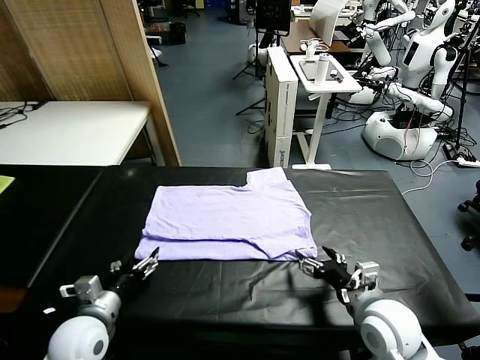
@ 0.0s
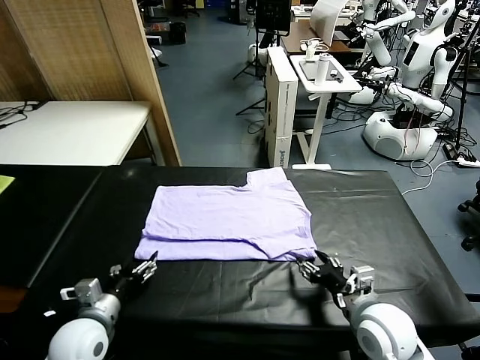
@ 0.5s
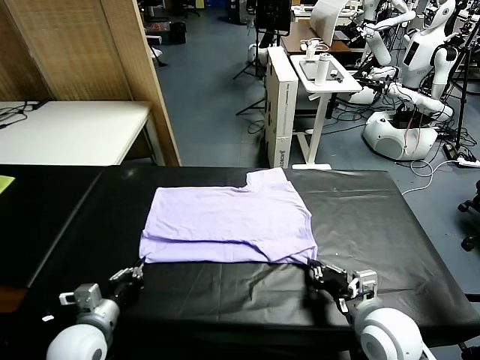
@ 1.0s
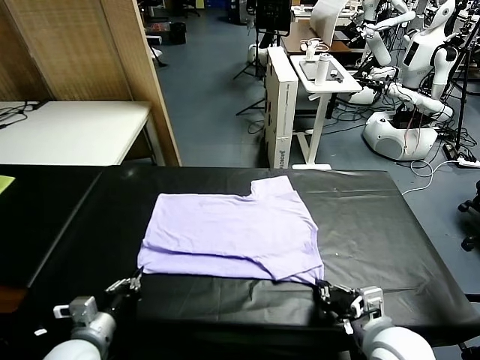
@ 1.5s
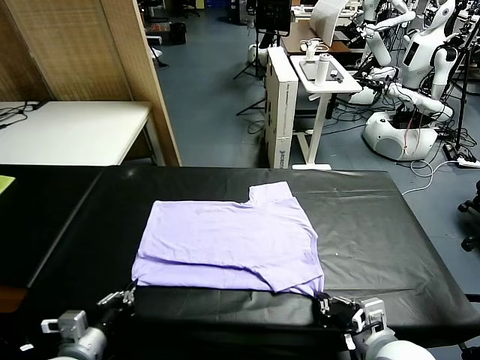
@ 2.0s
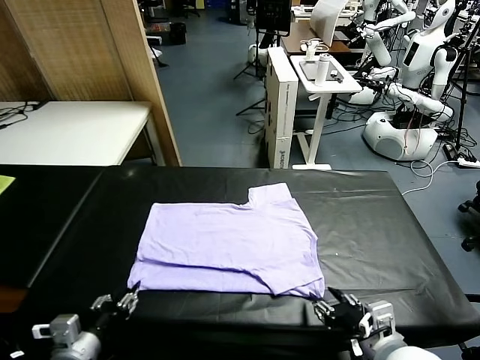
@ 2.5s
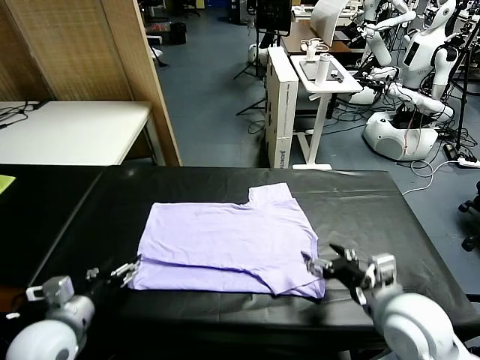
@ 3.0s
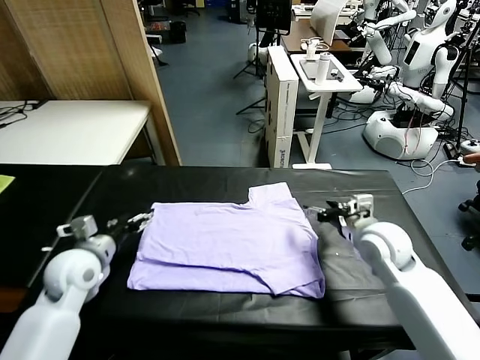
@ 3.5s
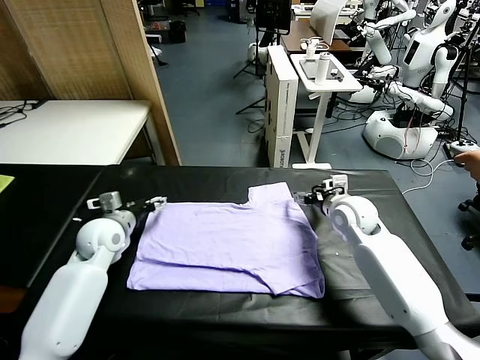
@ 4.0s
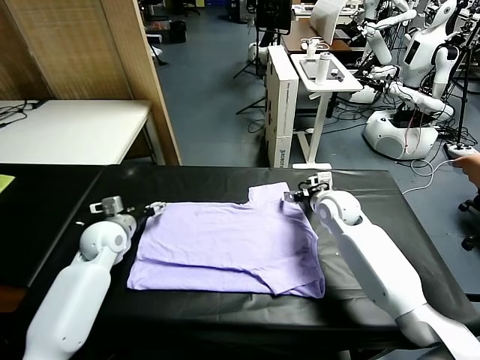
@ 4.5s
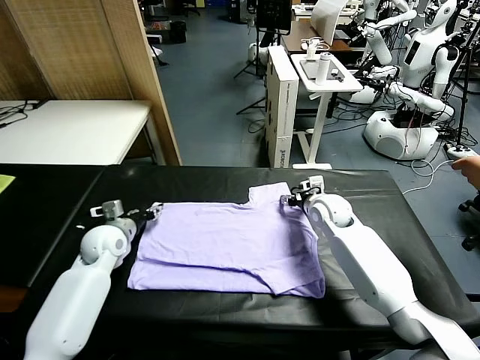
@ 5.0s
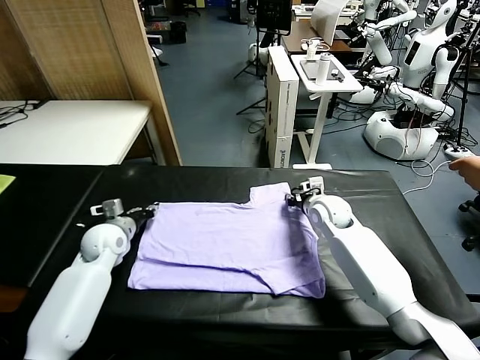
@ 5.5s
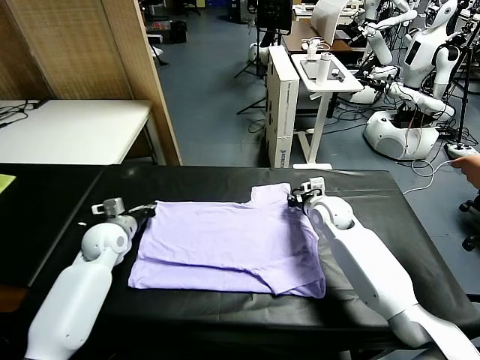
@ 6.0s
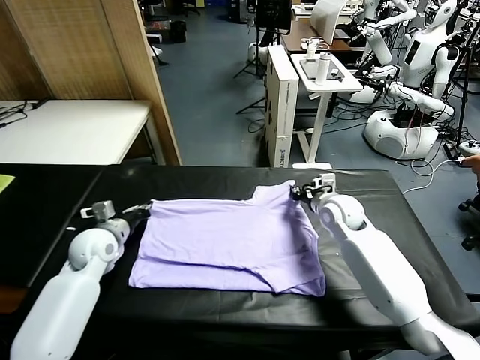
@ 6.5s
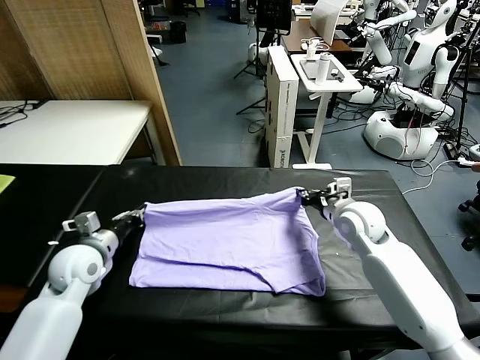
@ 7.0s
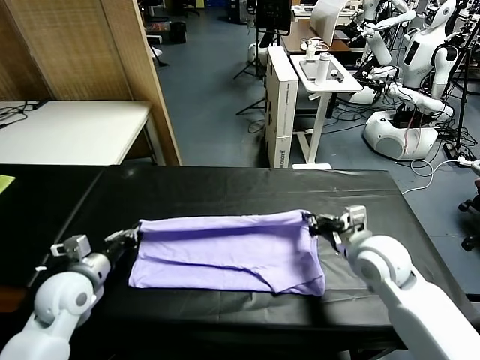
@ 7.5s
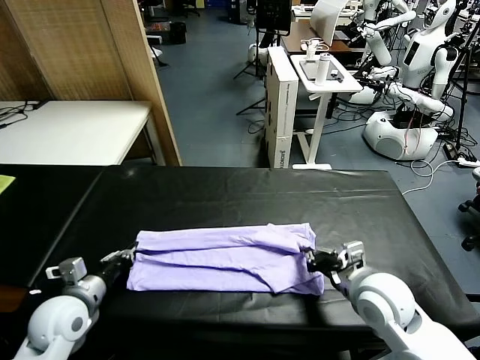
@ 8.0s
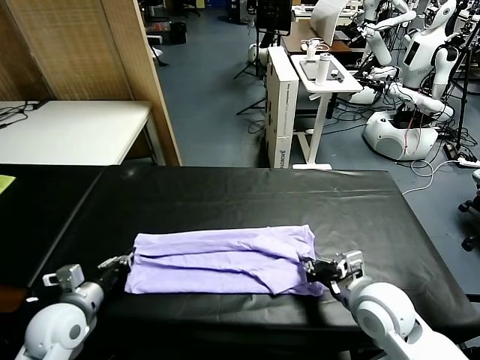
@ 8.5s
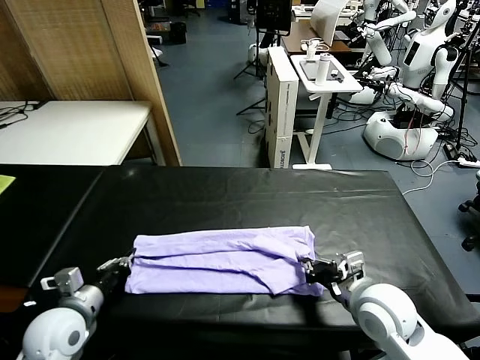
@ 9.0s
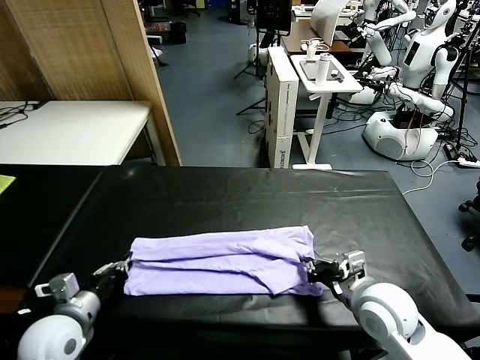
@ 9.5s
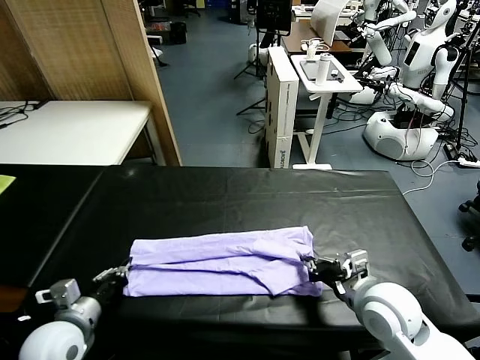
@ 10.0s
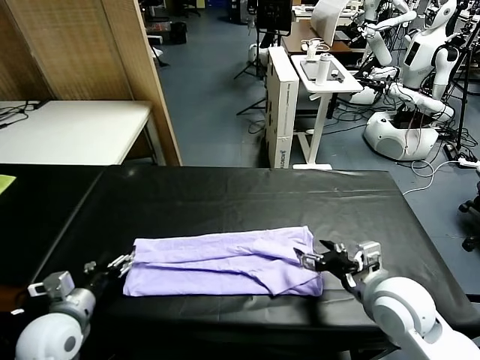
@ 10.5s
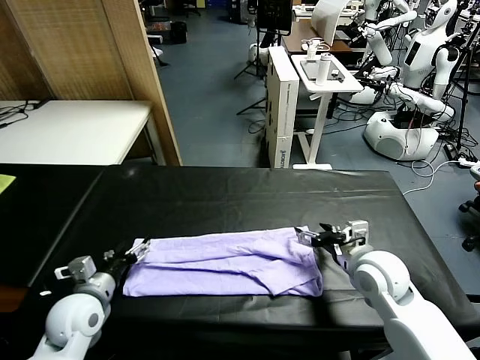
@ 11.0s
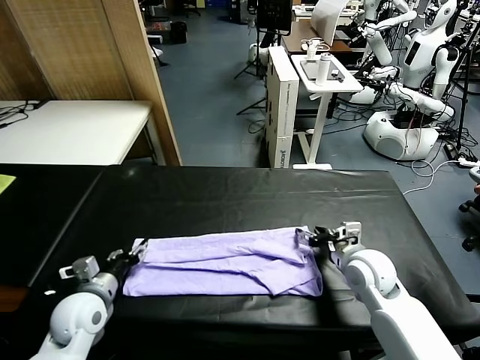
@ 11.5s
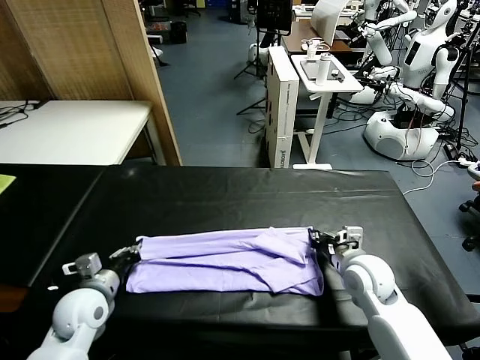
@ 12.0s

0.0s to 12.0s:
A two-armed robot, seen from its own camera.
Task of the whole recording: fold and organize the clothes.
Step, 0.0s to 2.5s: Drag the clothes downward with both gripper.
Step, 3.0s to 6.0s: use both grippers simultaneously to clamp the upper edge of the clothing fabric.
Step, 6.5s to 10.0s: use both grippers to drag the upper edge of the fabric backward and fold it over the lower edge.
0.0s to 2.0s: The grippers both shift backward by about 10 cm. The left gripper closes its fingers. Meanwhile the right gripper closes up.
2.0s to 4.0s: The grippers both shift forward by approximately 30 cm. The right gripper opens up; the left gripper opens its fingers.
4.0s to 6.0s: The right gripper closes, while the left gripper closes.
6.0s to 8.0s: The grippers both shift backward by approximately 20 cm.
8.0s to 10.0s: The left gripper opens; the right gripper opens its fingers.
10.0s to 12.0s: The left gripper moves forward, roughly 10 cm, and closes its fingers. Meanwhile the right gripper goes about 10 cm forward and downward, and closes up.

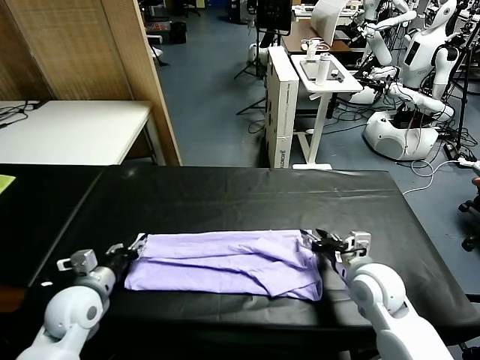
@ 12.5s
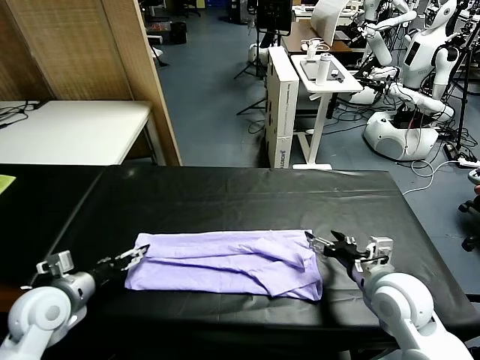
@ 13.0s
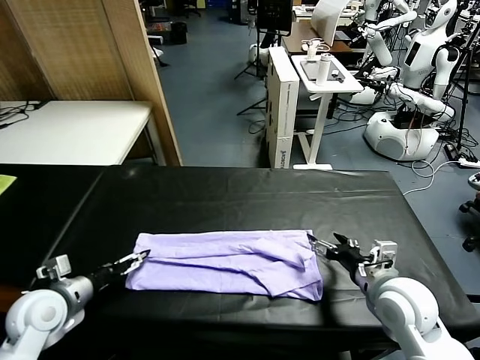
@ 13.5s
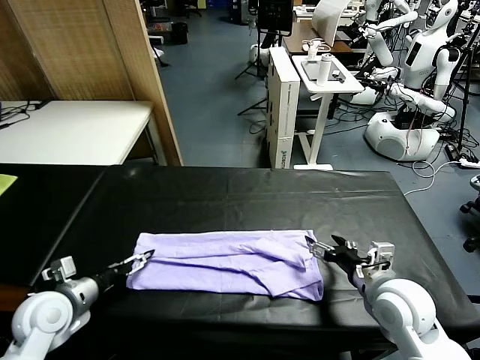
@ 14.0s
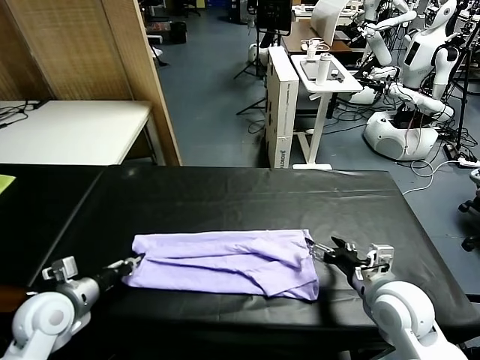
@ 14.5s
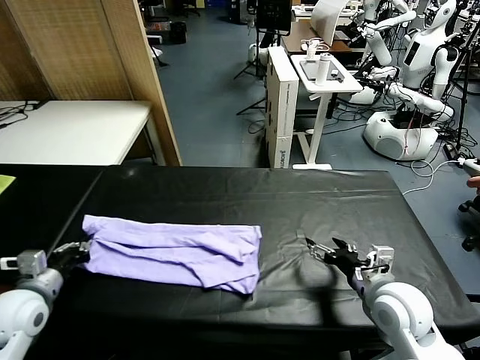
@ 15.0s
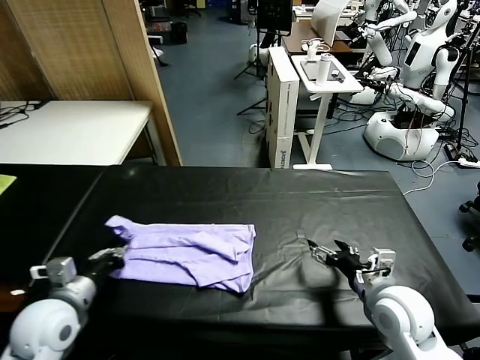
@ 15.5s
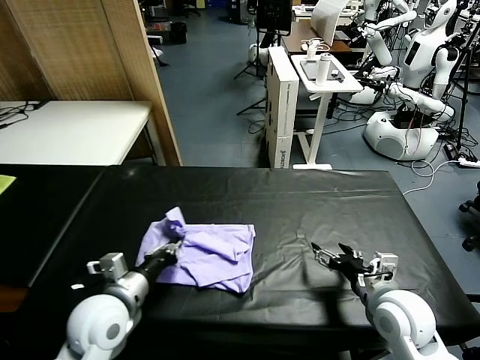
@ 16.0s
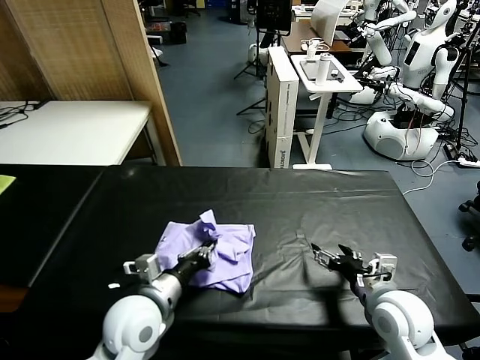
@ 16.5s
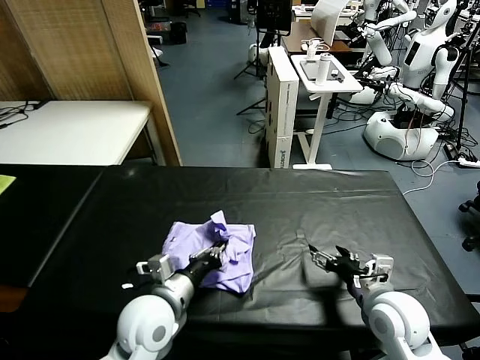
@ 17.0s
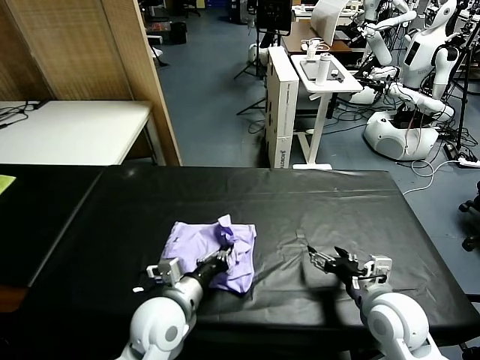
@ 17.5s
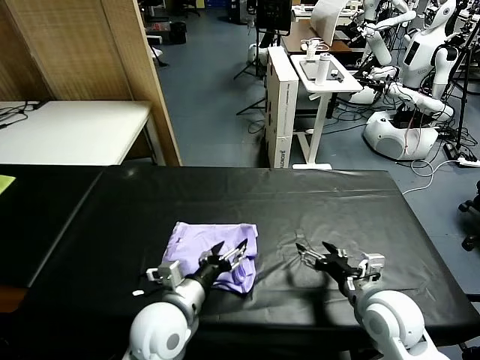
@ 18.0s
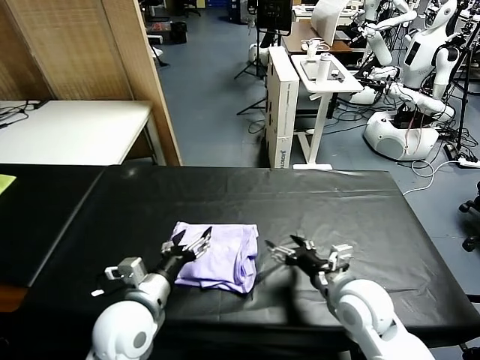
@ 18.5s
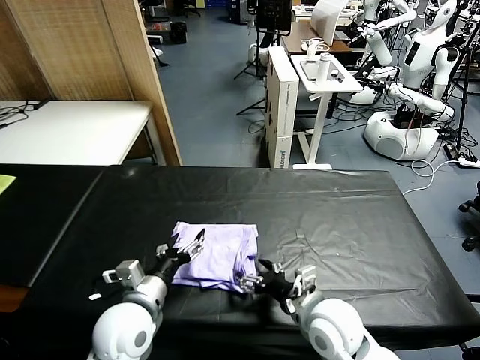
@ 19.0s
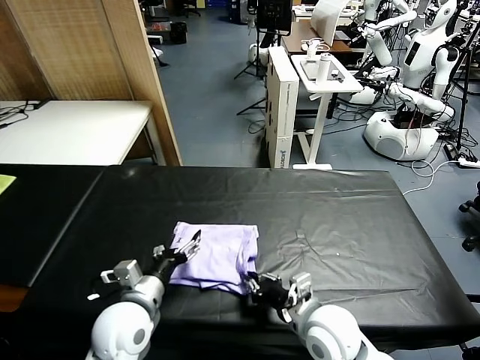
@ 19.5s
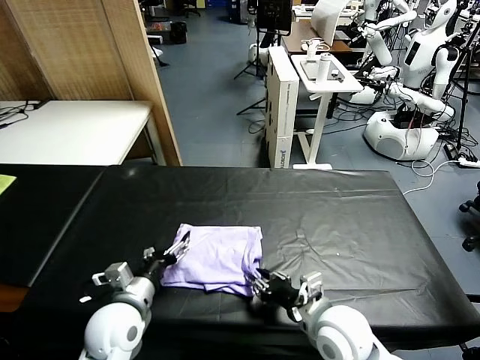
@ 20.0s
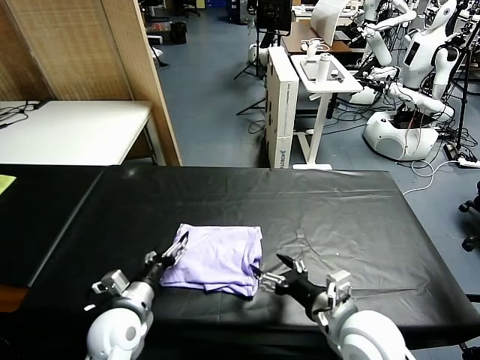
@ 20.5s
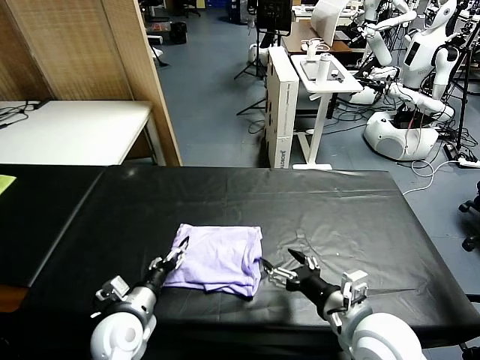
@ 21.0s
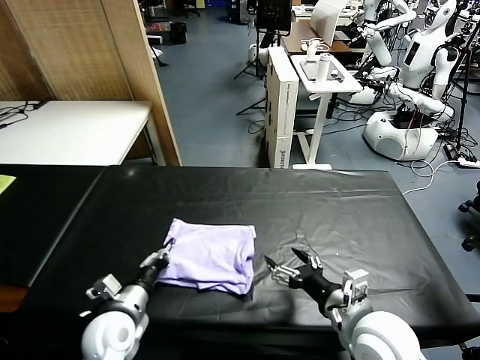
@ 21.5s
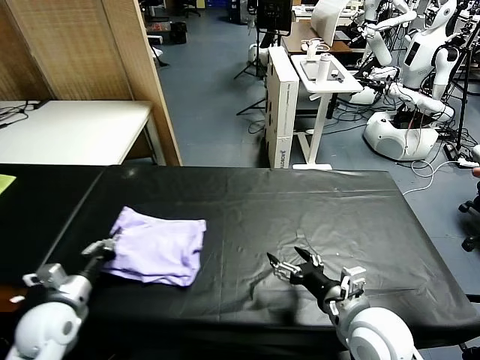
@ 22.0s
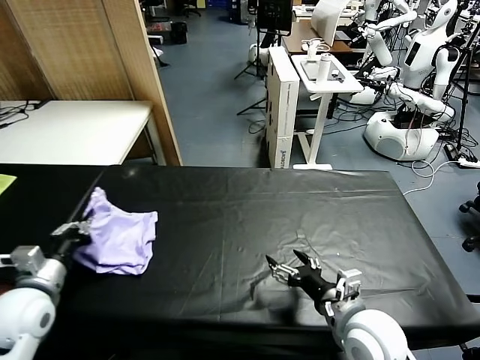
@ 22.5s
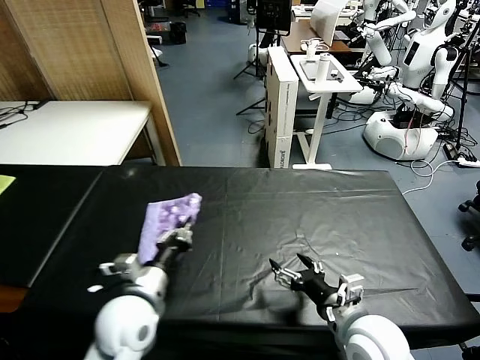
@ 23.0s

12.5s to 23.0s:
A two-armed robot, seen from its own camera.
Task of the whole recording: fold and organize the clothes.
Step, 15.0s to 18.0s: use the left gripper to drag the left edge of the fabric to the left and folds it over the right edge.
12.5s to 14.5s: The left gripper closes its fingers.
14.5s to 16.5s: The left gripper travels to the right by approximately 20 cm.
16.5s to 19.0s: The left gripper opens up; the right gripper travels to the left by some 10 cm.
19.0s to 21.0s: The left gripper travels downward by roughly 10 cm. The right gripper travels upward and to the right by approximately 10 cm, and closes, then opens again.
21.0s to 23.0s: The left gripper goes some 10 cm upward, moves approximately 15 cm to the left and comes back, and closes.

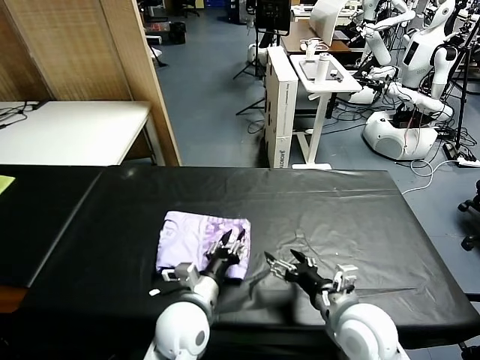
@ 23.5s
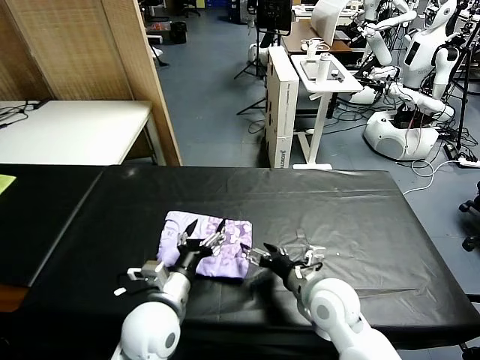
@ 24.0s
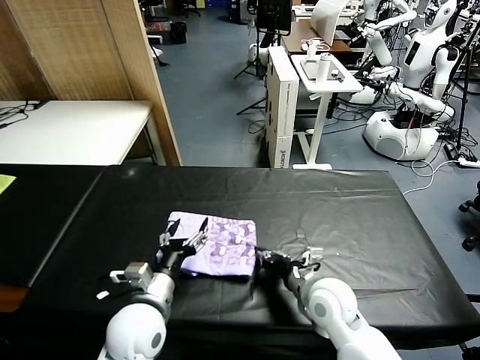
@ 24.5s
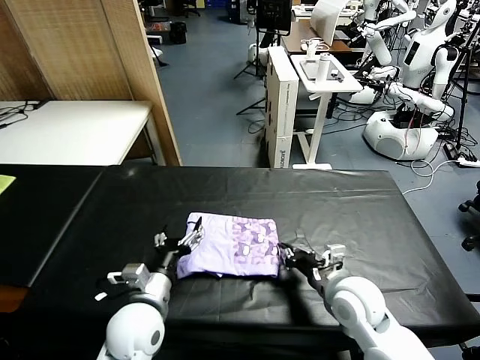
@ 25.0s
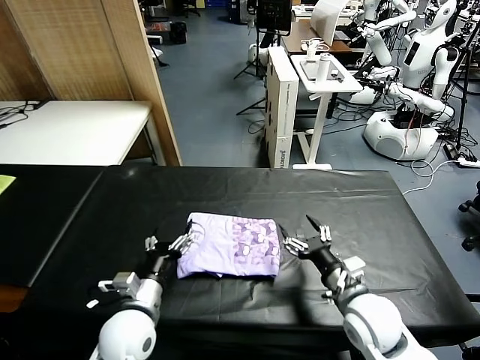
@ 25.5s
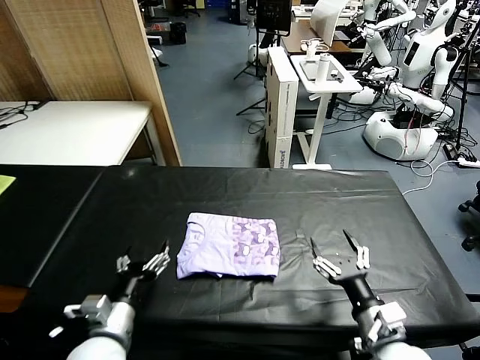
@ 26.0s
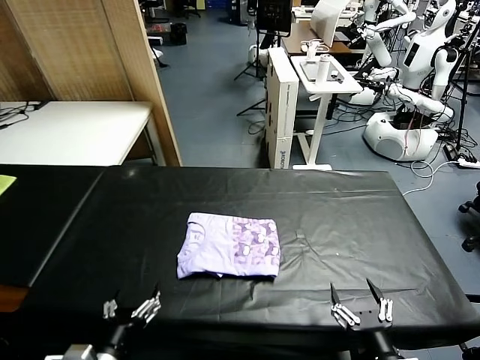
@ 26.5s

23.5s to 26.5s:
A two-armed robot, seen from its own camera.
Task of the whole recording: fold and organize the clothes.
Step, 24.0s to 25.0s: Drag the clothes to the center of the table.
23.5s to 25.0s: The left gripper travels to the left by roughly 10 cm, and opens up; the right gripper goes roughly 5 cm forward, and closes its fingers.
25.0s to 26.5s: The right gripper moves backward, approximately 20 cm, and opens up, while the left gripper moves backward and to the left, roughly 15 cm.
